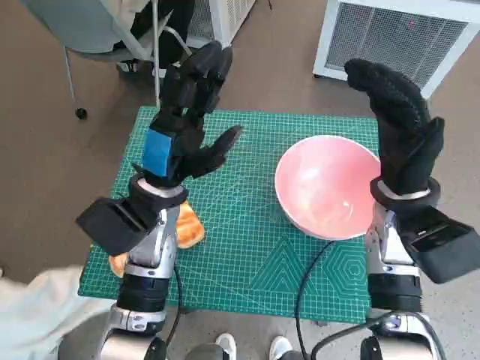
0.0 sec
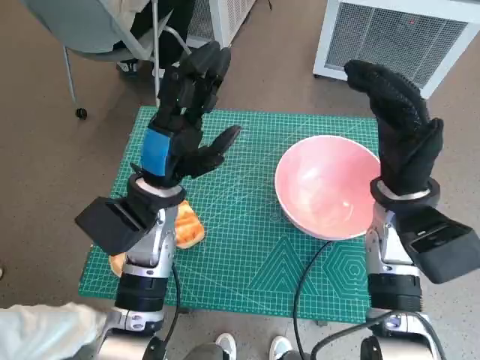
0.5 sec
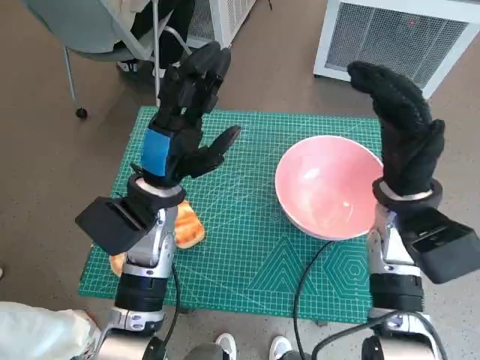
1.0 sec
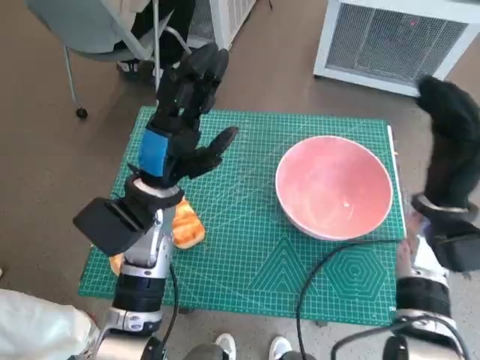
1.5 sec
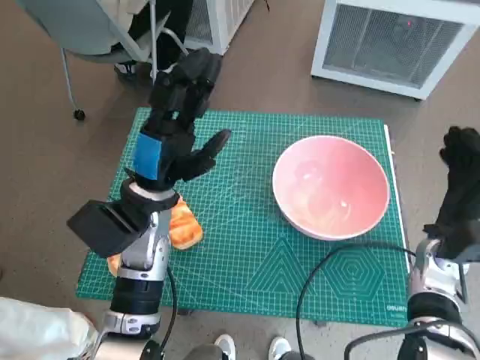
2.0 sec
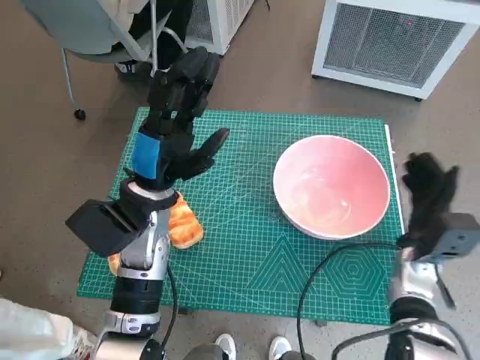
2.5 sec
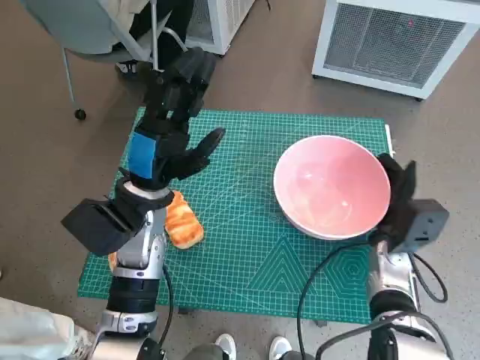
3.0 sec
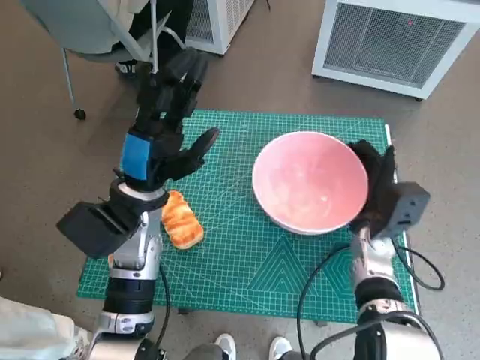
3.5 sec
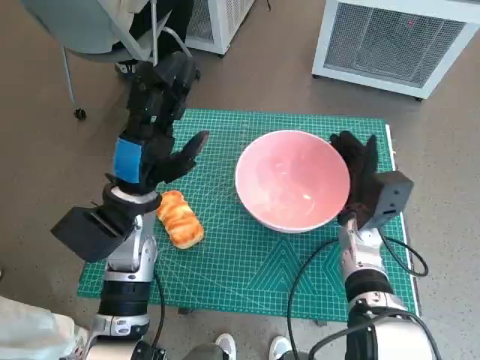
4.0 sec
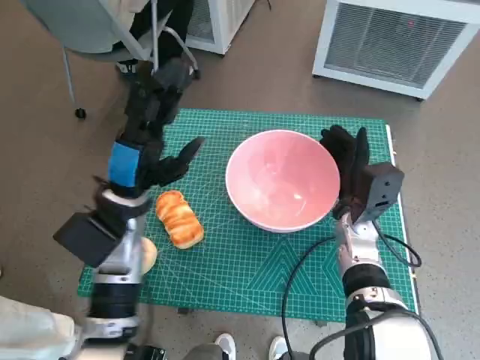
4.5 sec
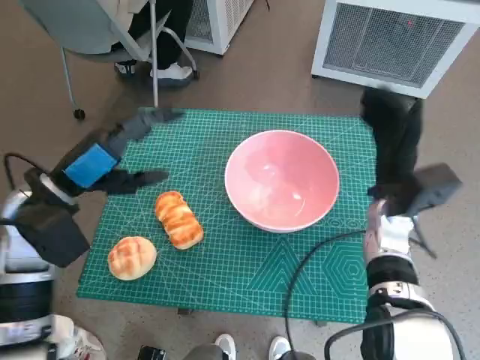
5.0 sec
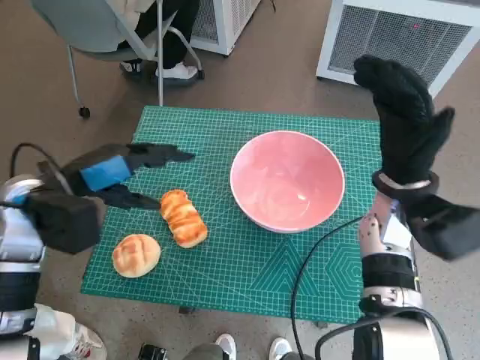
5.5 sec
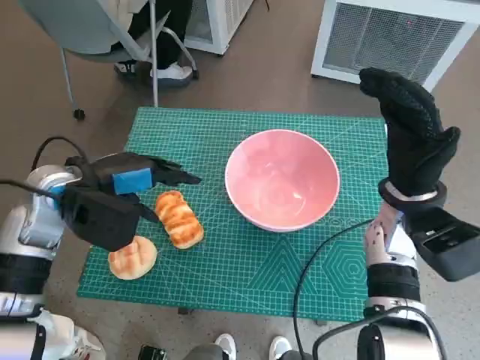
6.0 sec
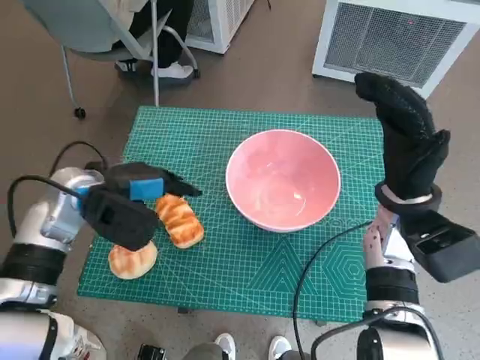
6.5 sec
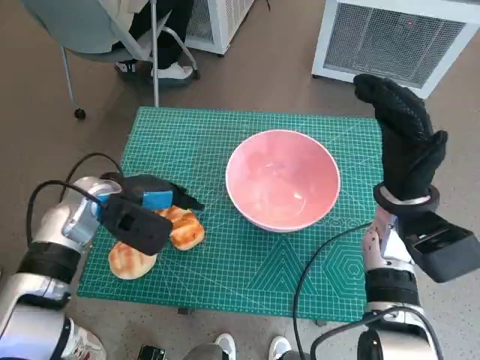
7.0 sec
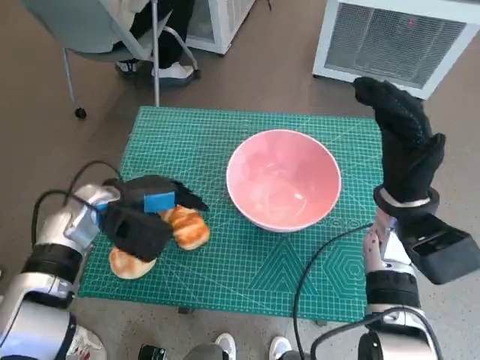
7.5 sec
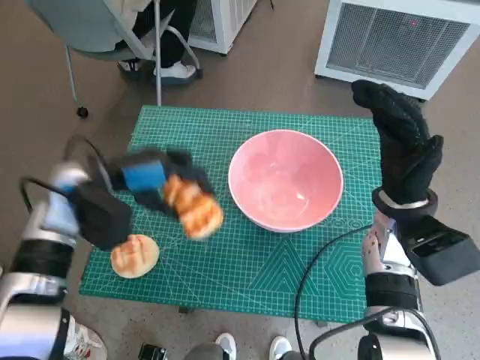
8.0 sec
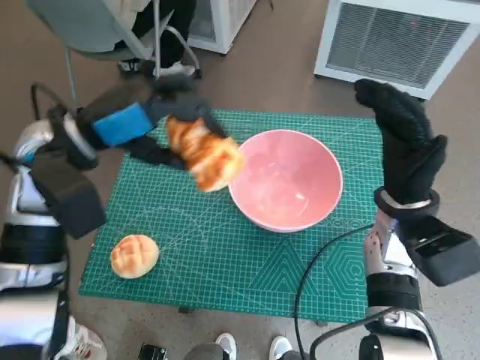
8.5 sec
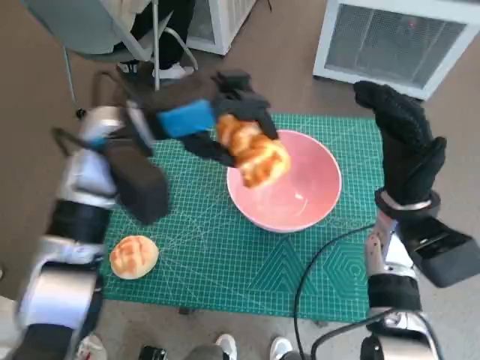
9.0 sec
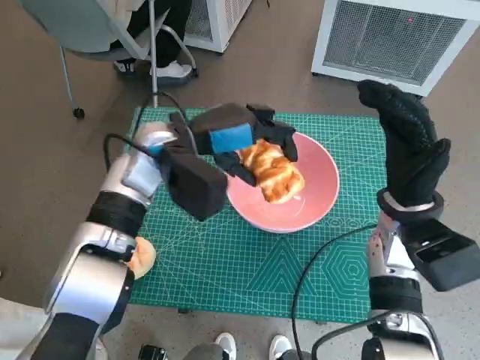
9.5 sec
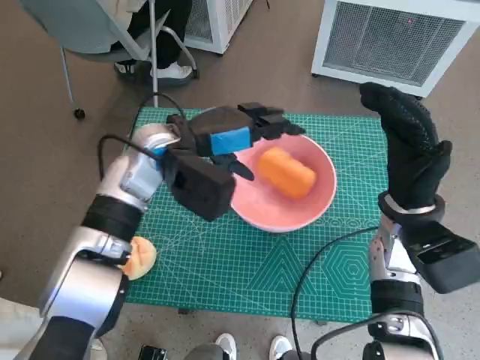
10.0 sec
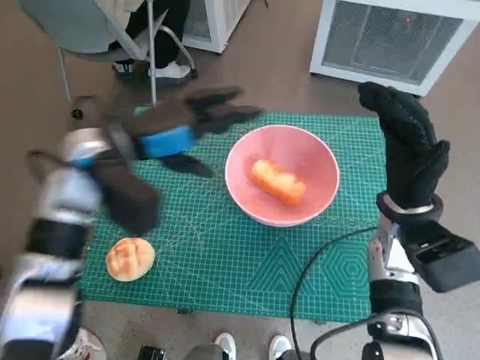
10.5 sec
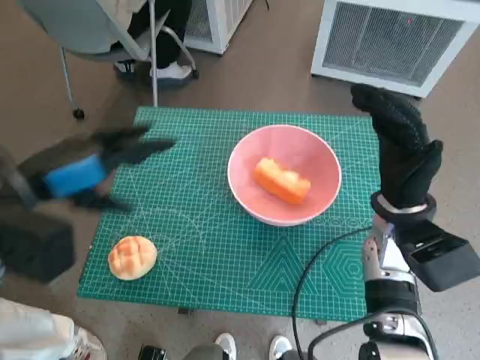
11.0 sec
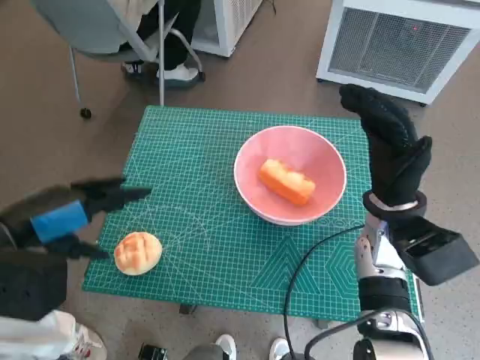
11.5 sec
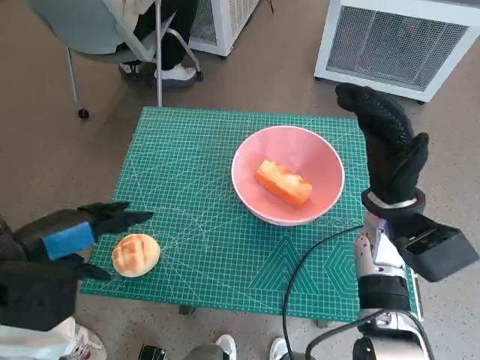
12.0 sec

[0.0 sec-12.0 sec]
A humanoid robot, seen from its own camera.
Task of the whole recording: Push the bowl to the center of the table and put the bread into the bowl.
Step, 0.0 sec to 5.0 sec: Move the pink bowl to the center of table with right hand.
Step, 5.5 sec to 7.0 sec: Grasp the long bread with left hand.
Step, 8.0 sec to 10.0 sec: Place the long bread in pink bowl with left hand.
2.0 sec to 4.0 sec: The right hand shifts approximately 10 cm to the left.
4.0 sec to 6.0 sec: The left hand goes some 10 cm to the left. The right hand moves upward, roughly 10 cm.
8.0 sec to 10.0 sec: The left hand goes approximately 10 cm to the right.
10.0 sec to 12.0 sec: The left hand travels to the left and backward by some 25 cm.

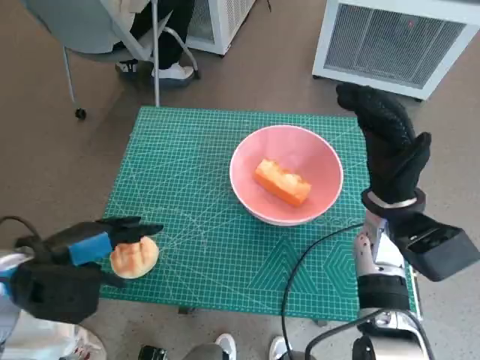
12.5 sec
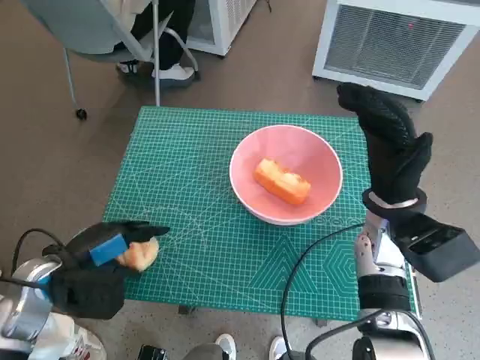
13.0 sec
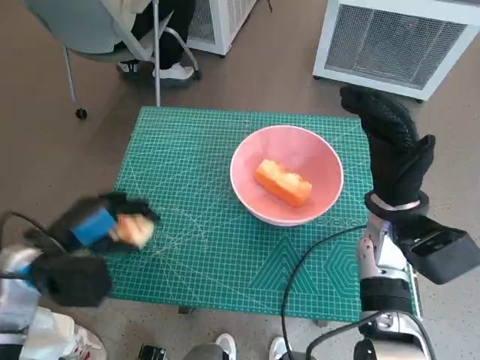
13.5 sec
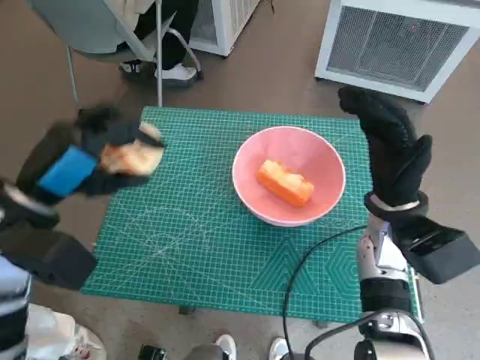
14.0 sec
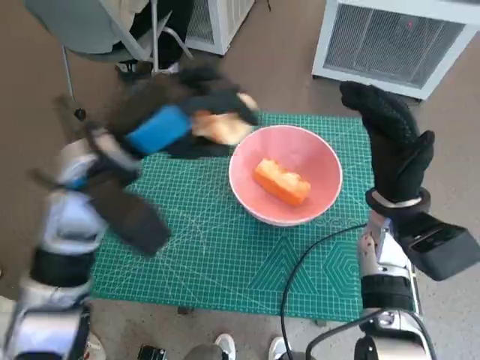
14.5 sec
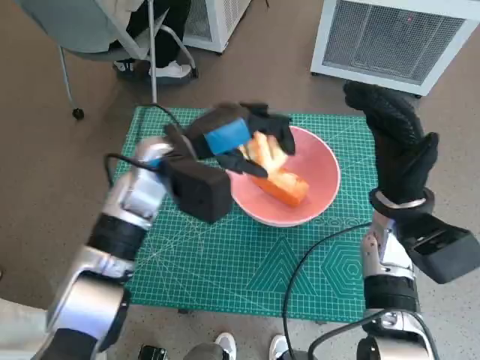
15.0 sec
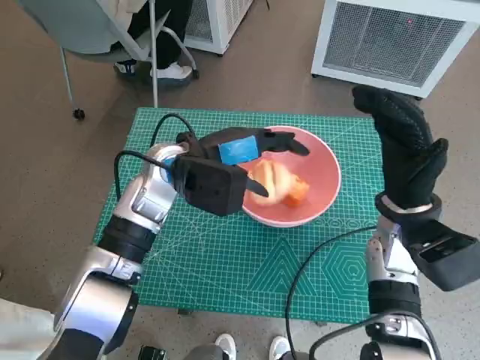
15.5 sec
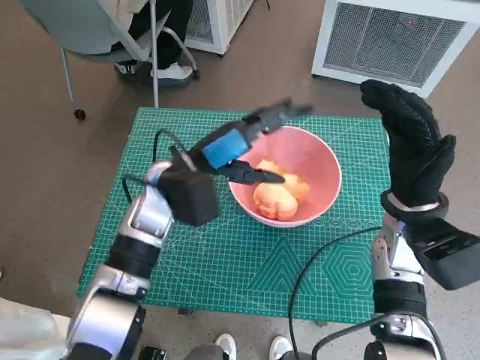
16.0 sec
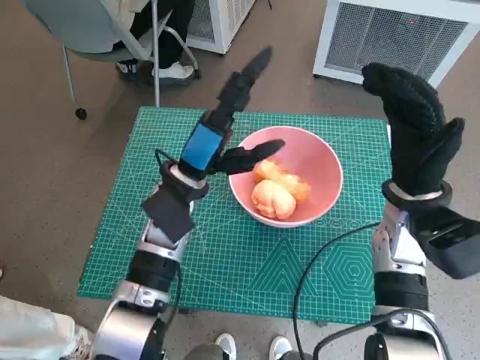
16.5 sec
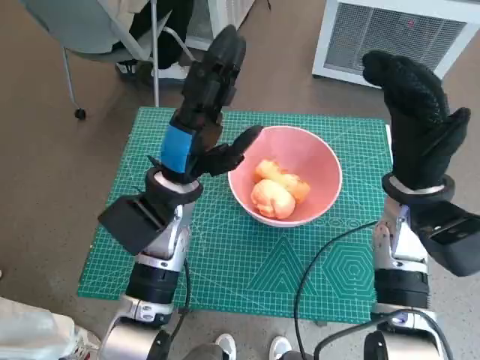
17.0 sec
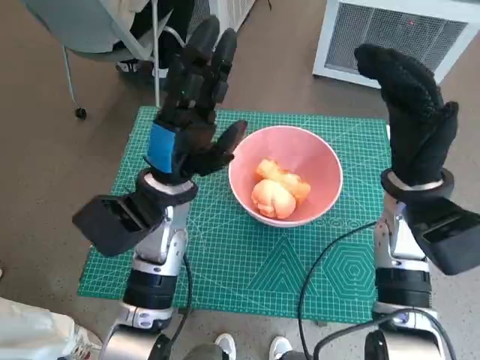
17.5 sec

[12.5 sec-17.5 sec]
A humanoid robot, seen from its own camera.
Task of the whole recording: Push the bowl to the center of the table and put the bread into the bowl.
Step, 13.5 sec to 16.0 sec: Place the round bread in pink bowl with left hand.
12.5 sec to 15.0 sec: The left hand moves to the right and forward, approximately 20 cm.
15.0 sec to 17.5 sec: The left hand ends up approximately 5 cm from where it was.
